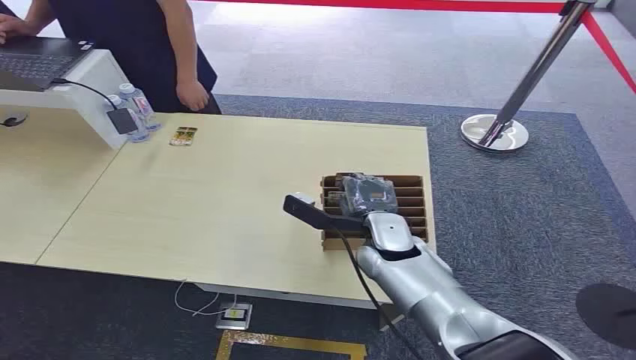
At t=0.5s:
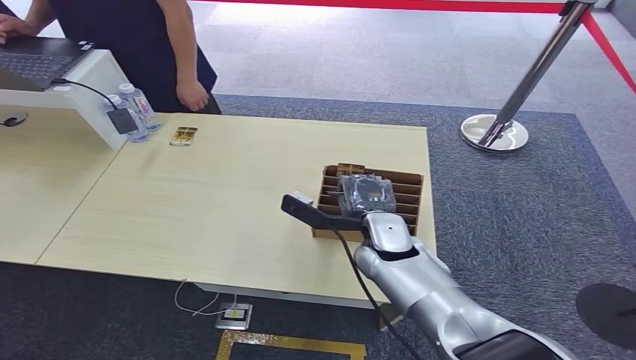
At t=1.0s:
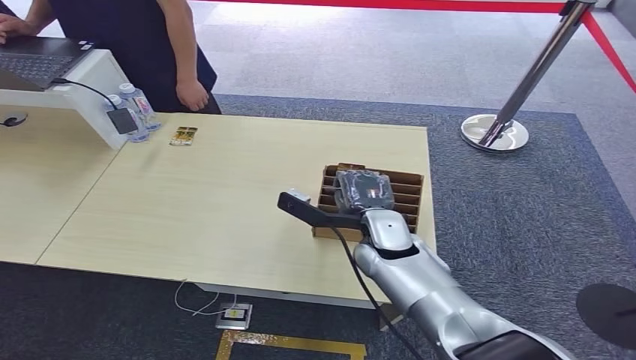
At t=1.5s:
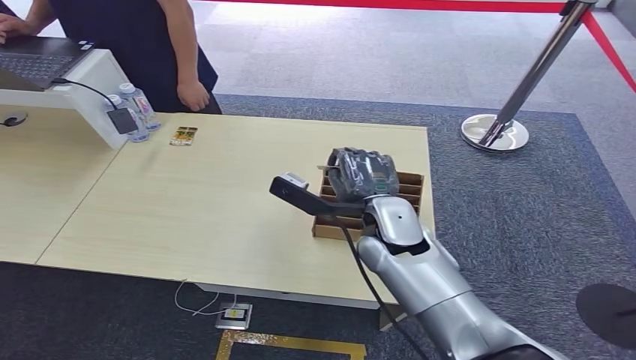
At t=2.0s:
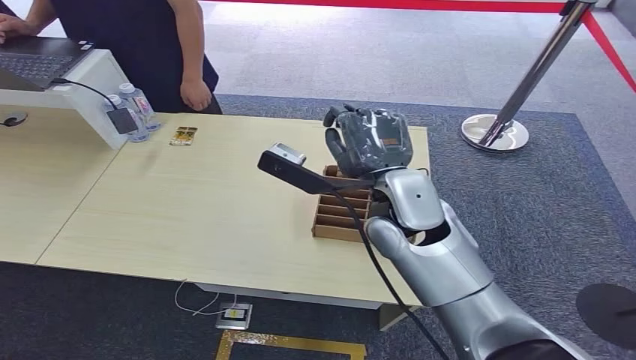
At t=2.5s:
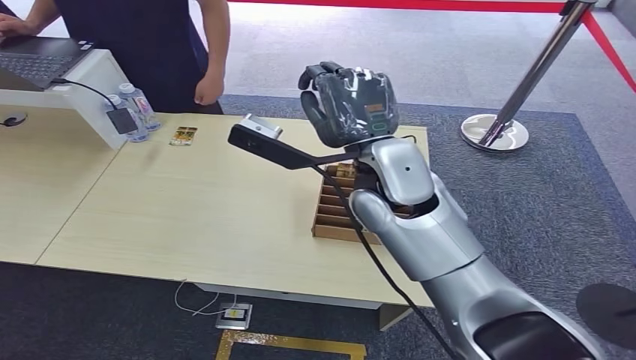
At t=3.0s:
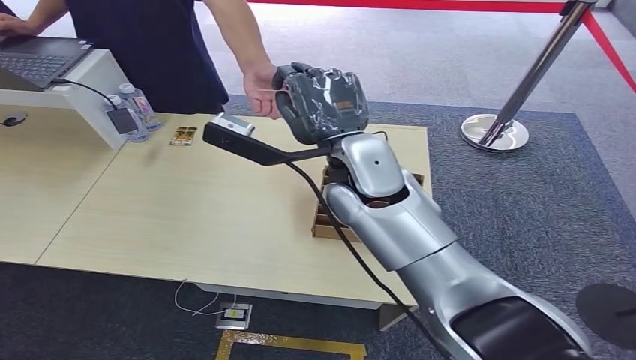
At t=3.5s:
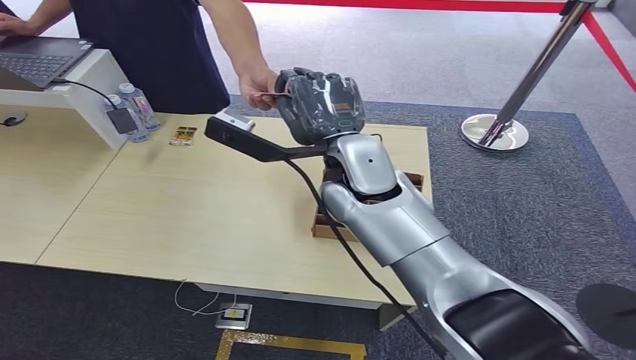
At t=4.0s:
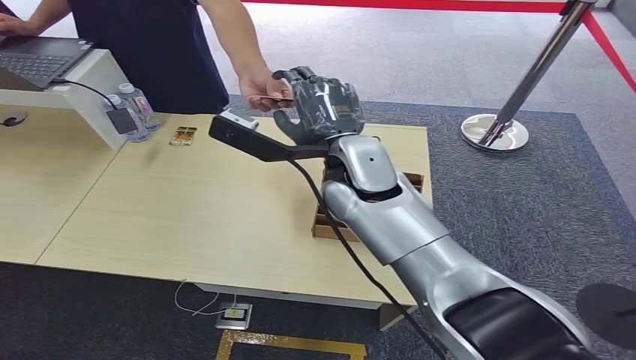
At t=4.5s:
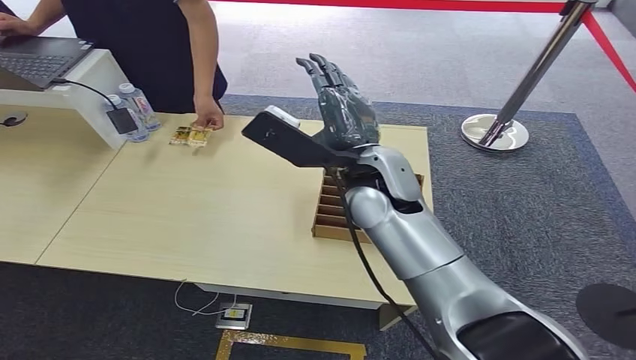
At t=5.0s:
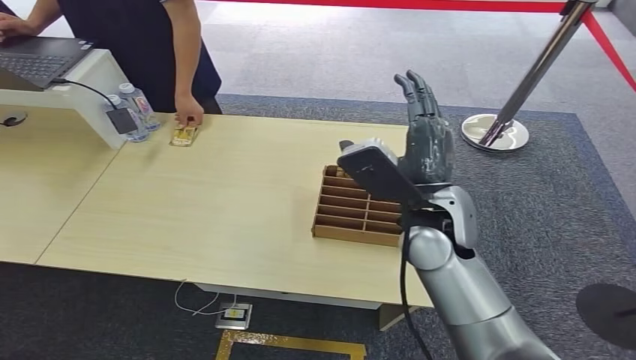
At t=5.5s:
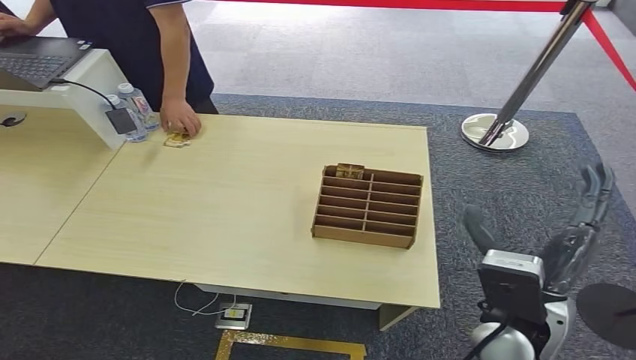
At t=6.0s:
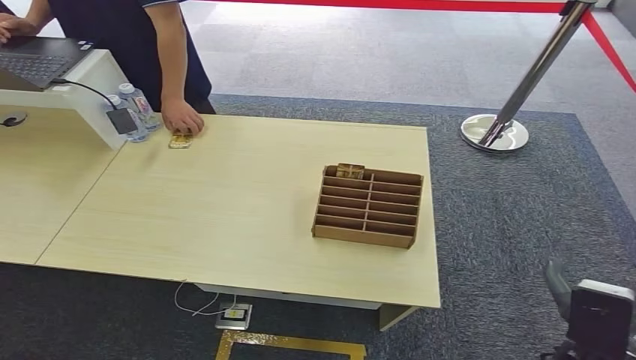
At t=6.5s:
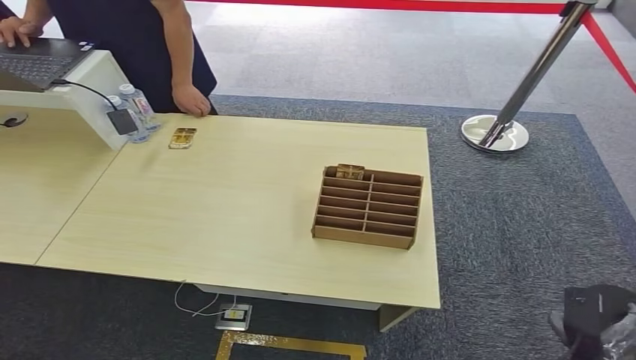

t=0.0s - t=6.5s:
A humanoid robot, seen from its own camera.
Step, t=0.0s - t=2.0s: Pick up the key card from the card box.
Step, t=2.5s - t=6.5s: Hand the key card to the target.
t=4.5s - t=6.5s: The right hand travels to the right, downward and backward by some 50 cm.

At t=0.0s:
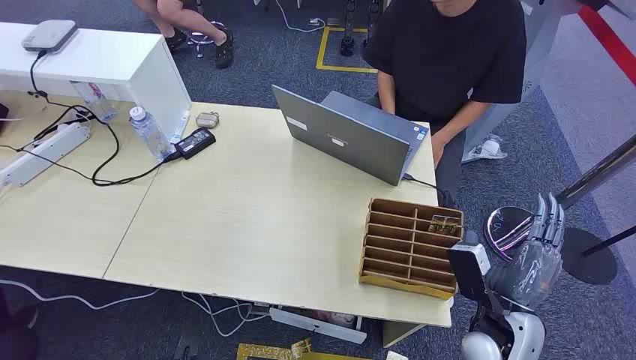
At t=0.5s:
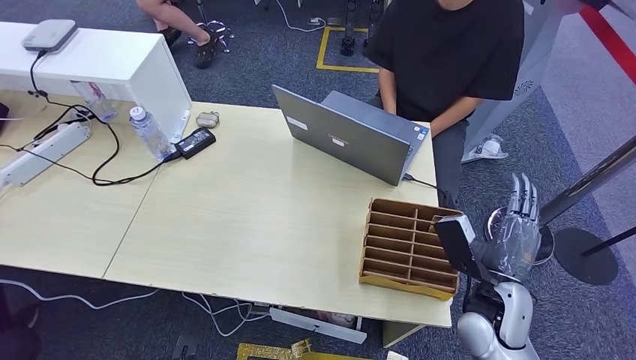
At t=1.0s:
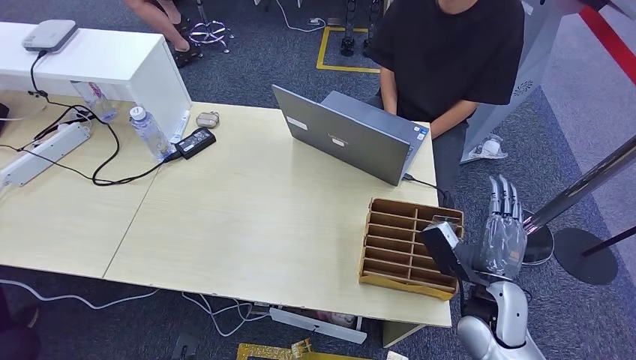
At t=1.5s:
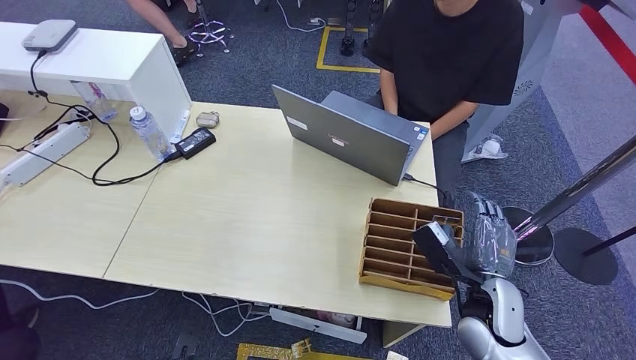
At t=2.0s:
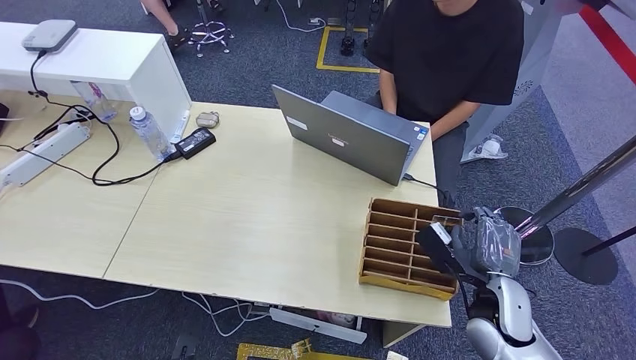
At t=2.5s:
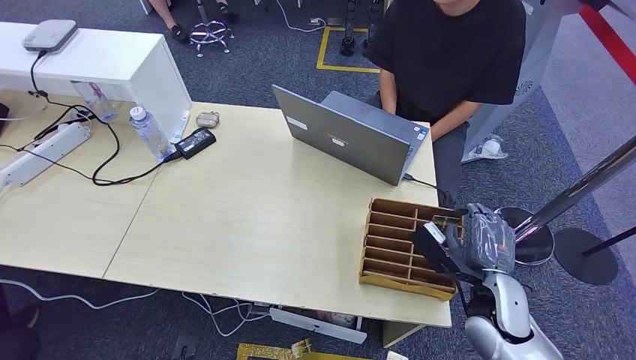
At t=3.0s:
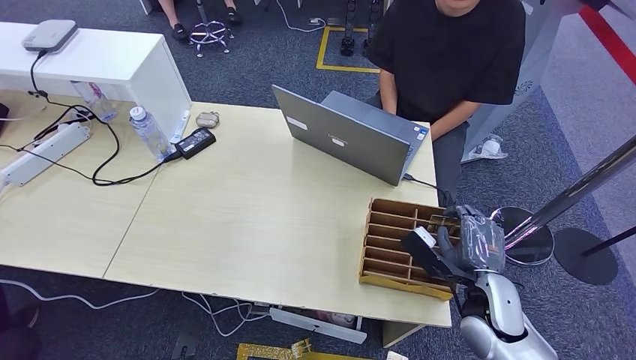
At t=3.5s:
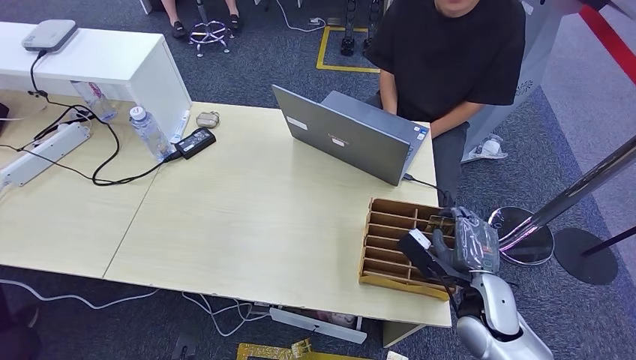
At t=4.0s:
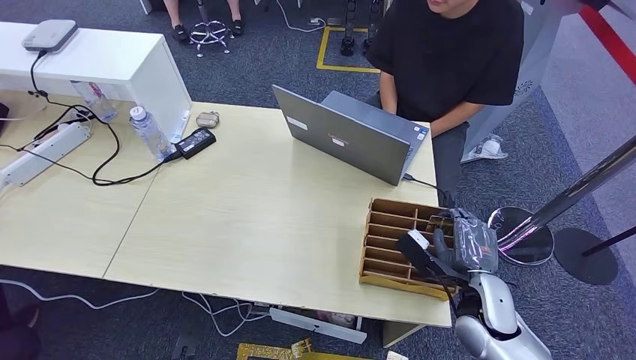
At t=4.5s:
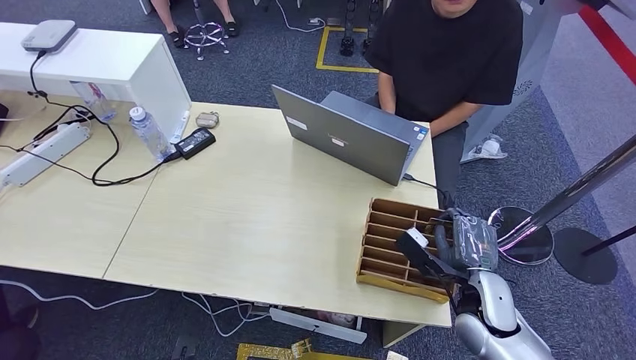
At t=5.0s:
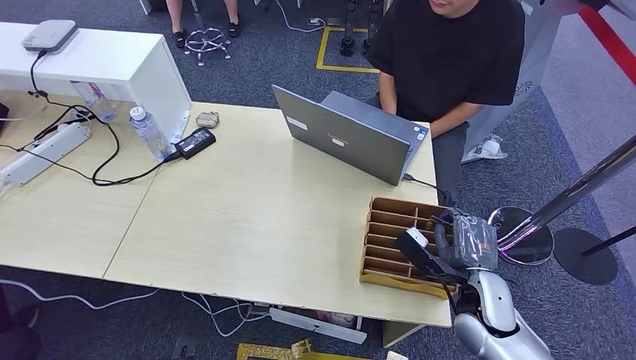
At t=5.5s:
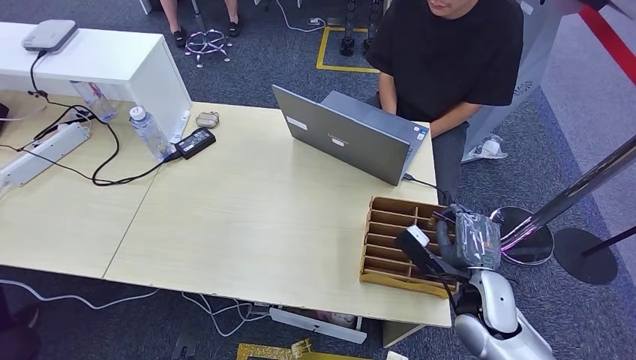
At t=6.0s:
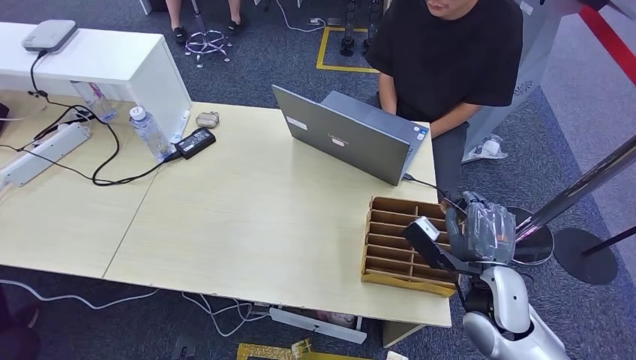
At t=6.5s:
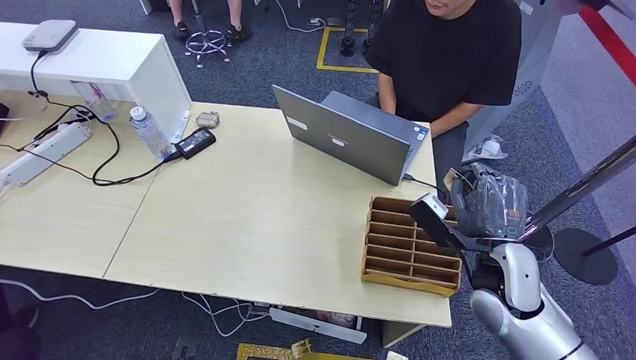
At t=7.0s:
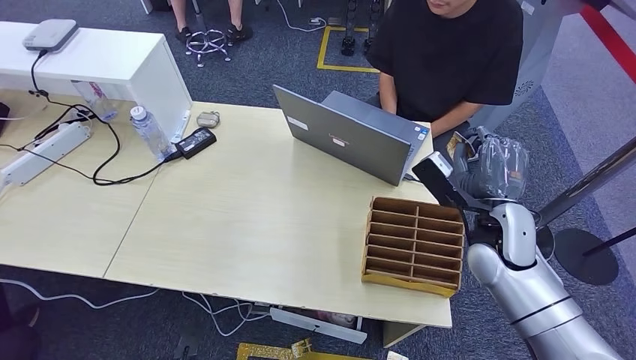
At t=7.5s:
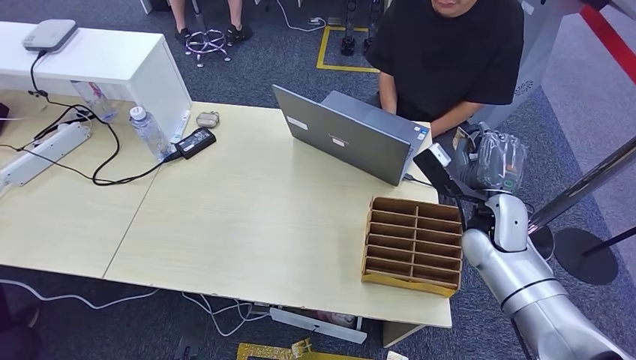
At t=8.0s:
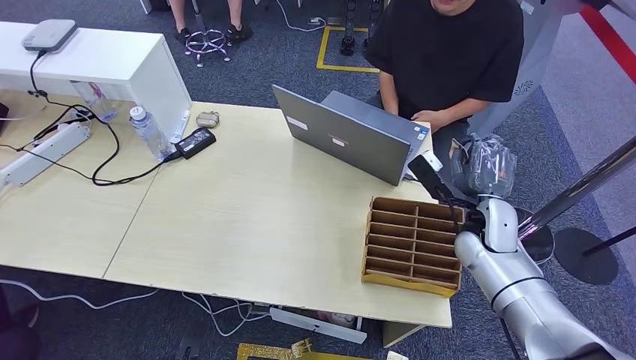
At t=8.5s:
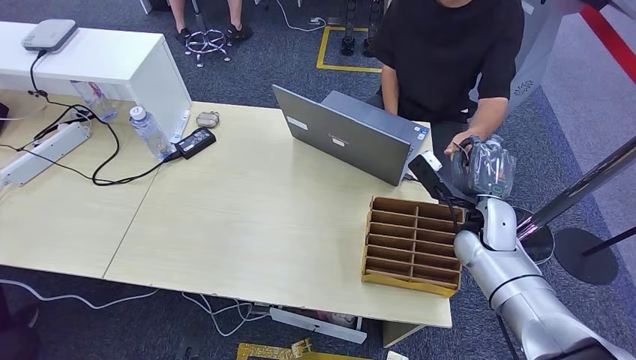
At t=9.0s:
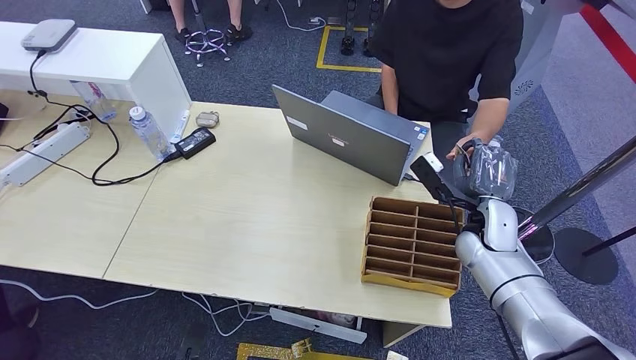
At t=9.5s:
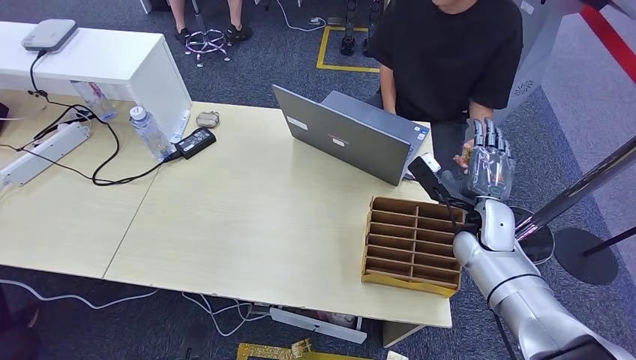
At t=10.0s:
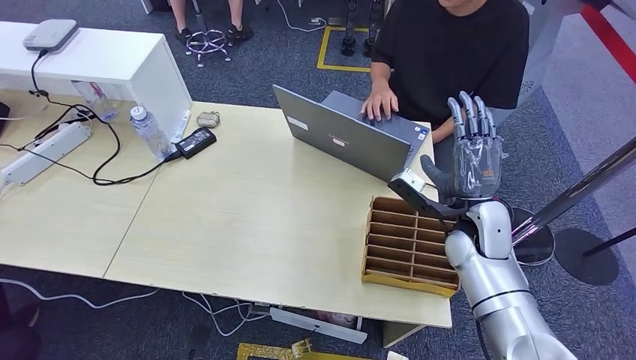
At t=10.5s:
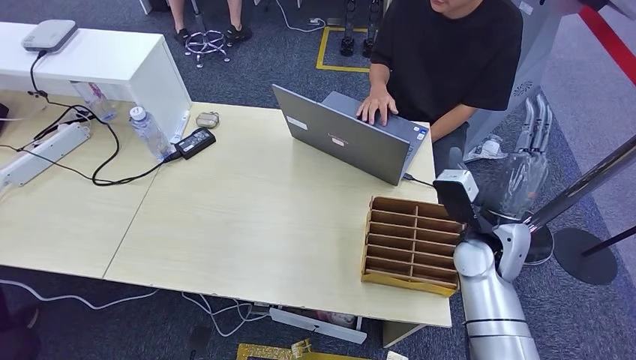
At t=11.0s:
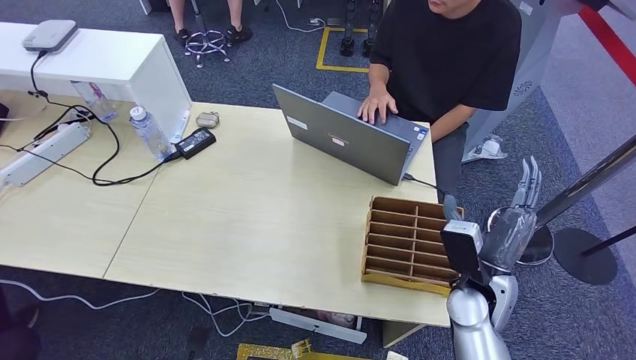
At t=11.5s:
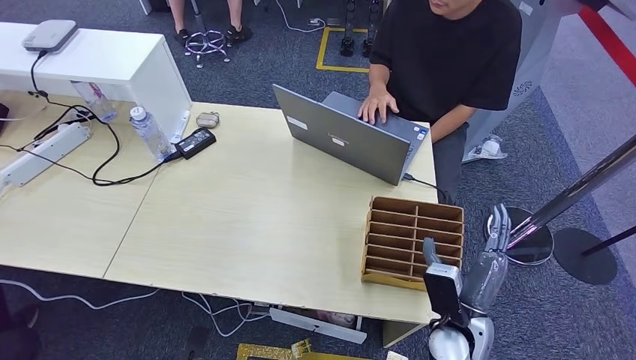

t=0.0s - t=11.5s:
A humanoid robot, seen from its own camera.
Step, t=0.0s - t=7.0s: Pick up the key card from the card box.
Step, t=7.5s - t=11.5s: Hand the key card to the target.
t=2.0s - t=6.0s: The hands move only a little.
t=6.0s - t=7.5s: The right hand moves forward, about 10 cm.
t=7.5s - t=9.5s: The hands move only a little.
t=9.5s - t=11.5s: The right hand heads backward and downward, covering about 20 cm.

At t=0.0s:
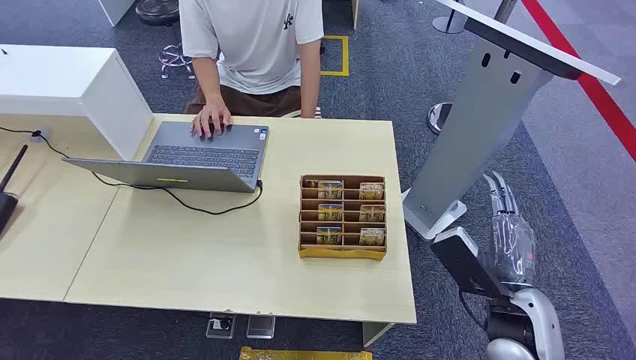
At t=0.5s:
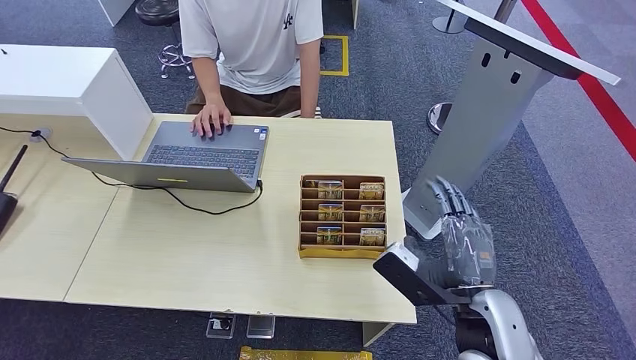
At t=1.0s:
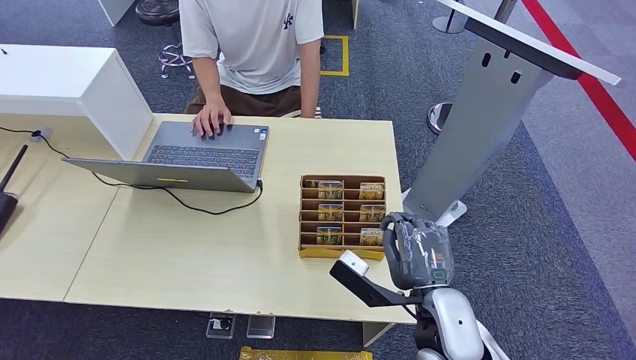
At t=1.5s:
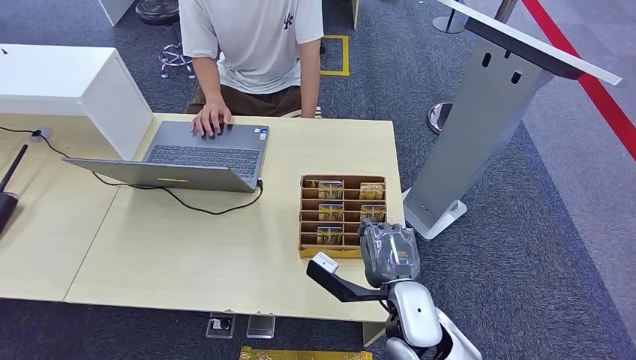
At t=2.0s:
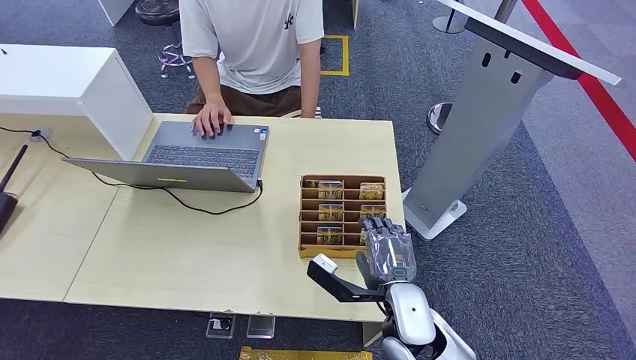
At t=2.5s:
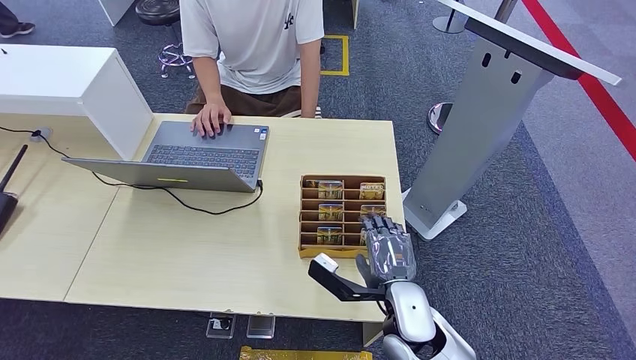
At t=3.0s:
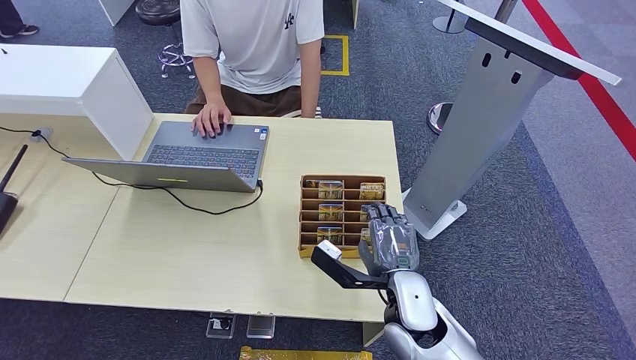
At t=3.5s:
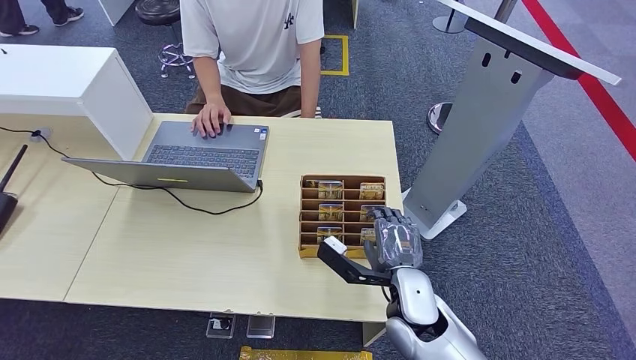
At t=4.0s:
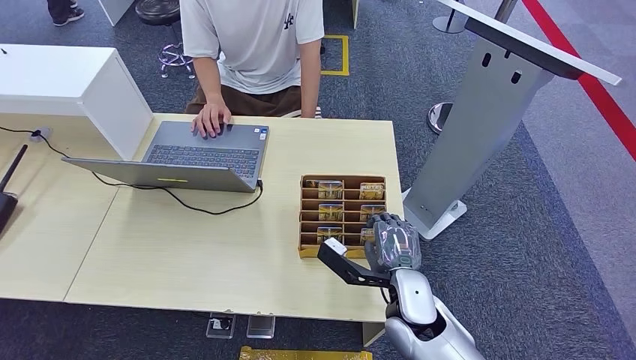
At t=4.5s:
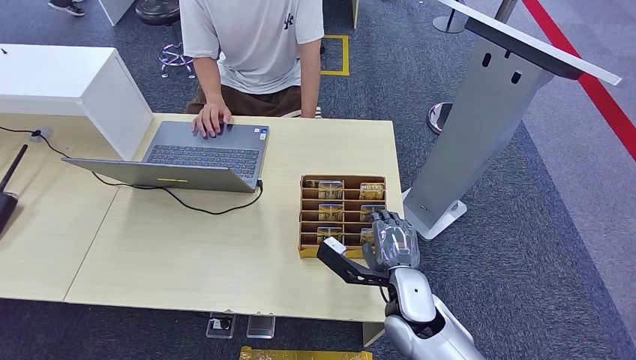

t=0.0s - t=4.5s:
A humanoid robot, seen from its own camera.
t=2.0s - t=4.5s: The hands make only small movements.
